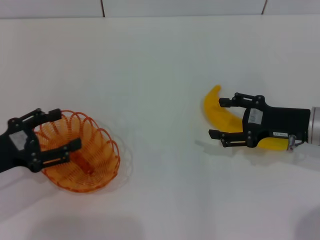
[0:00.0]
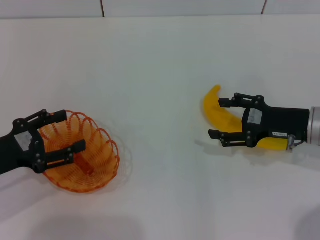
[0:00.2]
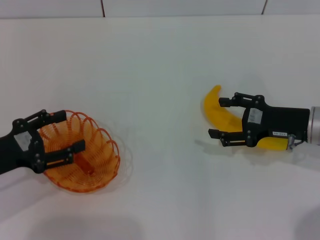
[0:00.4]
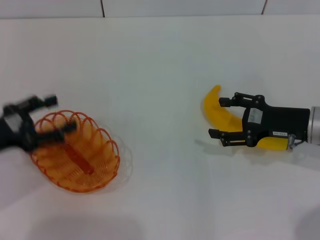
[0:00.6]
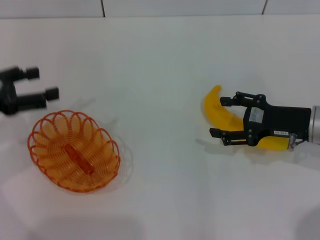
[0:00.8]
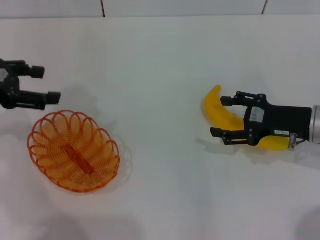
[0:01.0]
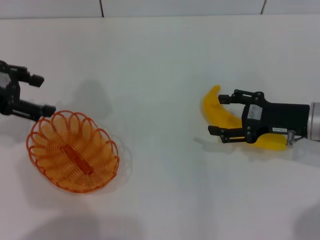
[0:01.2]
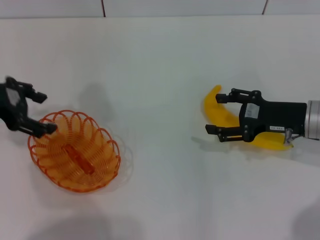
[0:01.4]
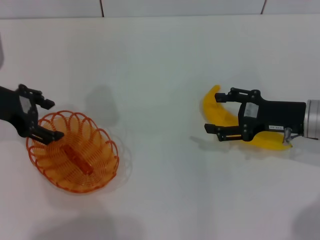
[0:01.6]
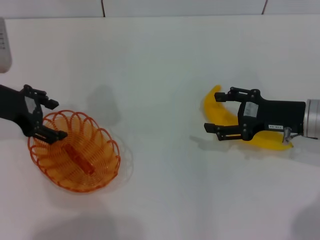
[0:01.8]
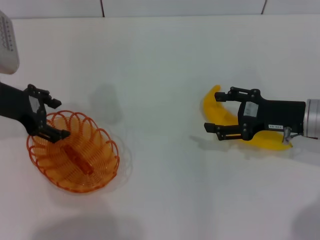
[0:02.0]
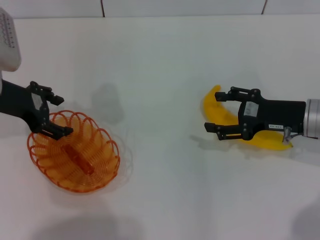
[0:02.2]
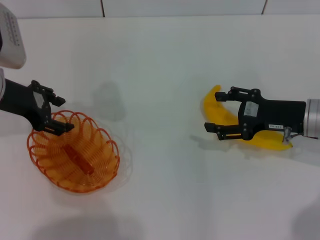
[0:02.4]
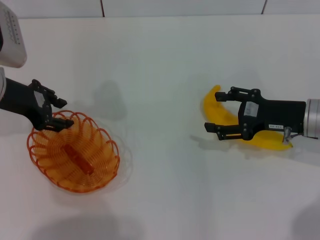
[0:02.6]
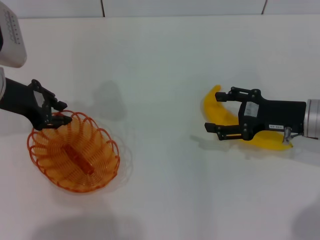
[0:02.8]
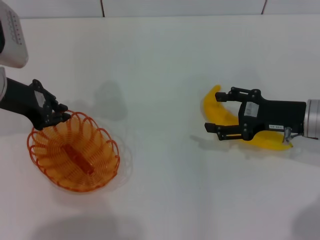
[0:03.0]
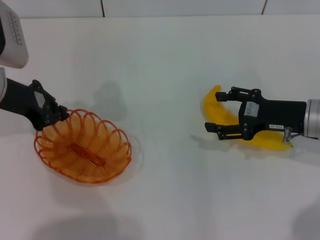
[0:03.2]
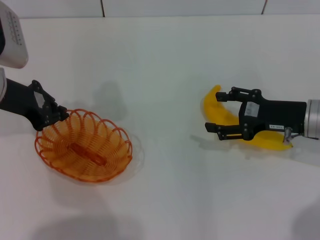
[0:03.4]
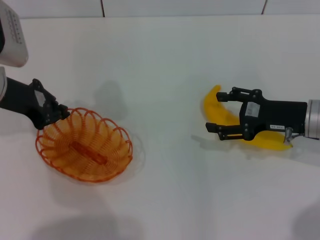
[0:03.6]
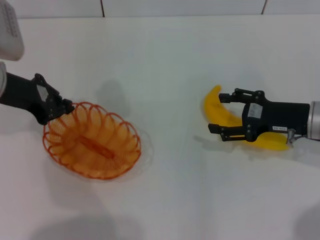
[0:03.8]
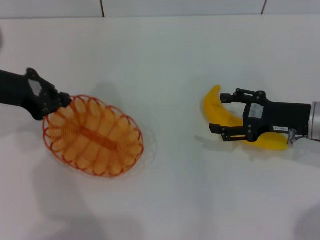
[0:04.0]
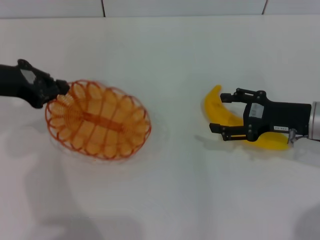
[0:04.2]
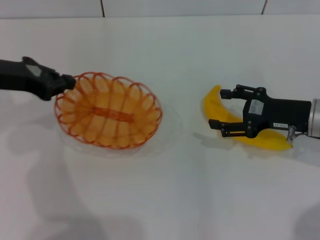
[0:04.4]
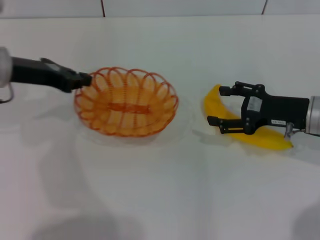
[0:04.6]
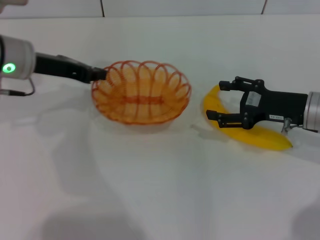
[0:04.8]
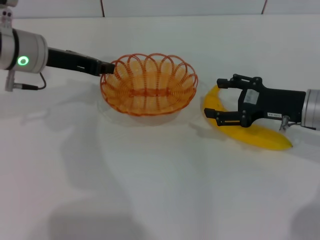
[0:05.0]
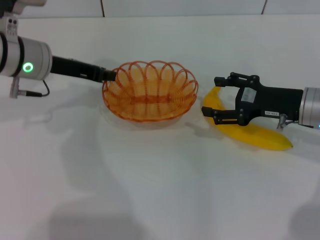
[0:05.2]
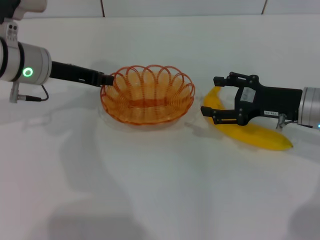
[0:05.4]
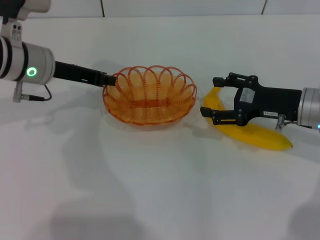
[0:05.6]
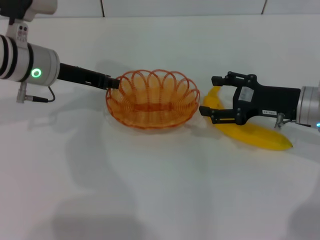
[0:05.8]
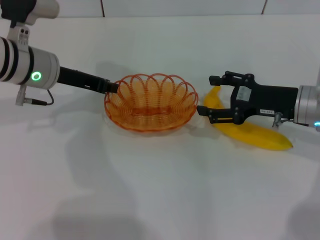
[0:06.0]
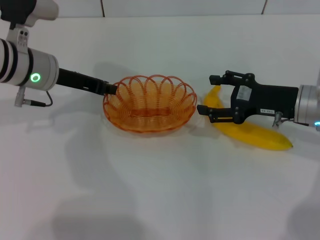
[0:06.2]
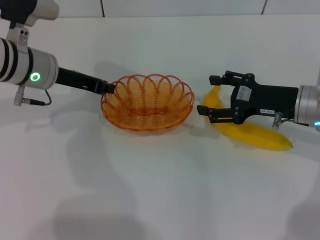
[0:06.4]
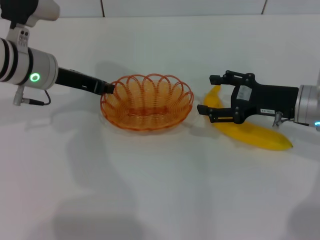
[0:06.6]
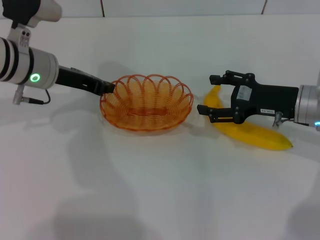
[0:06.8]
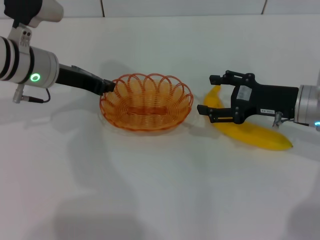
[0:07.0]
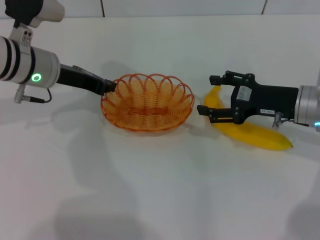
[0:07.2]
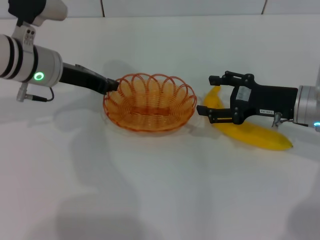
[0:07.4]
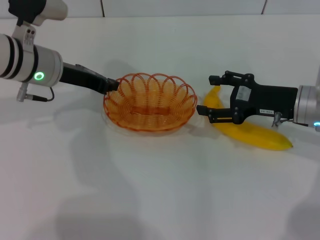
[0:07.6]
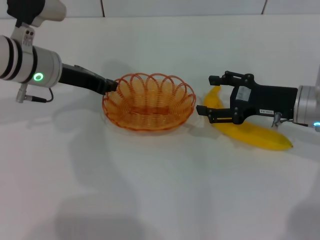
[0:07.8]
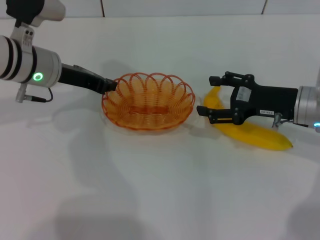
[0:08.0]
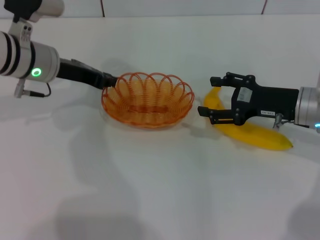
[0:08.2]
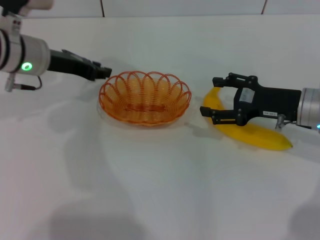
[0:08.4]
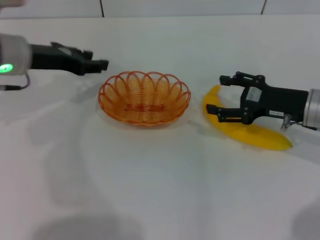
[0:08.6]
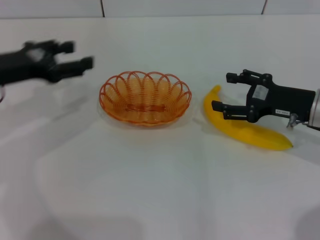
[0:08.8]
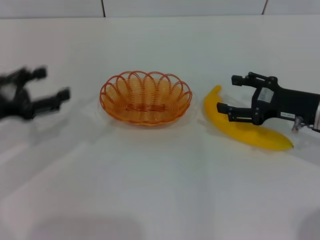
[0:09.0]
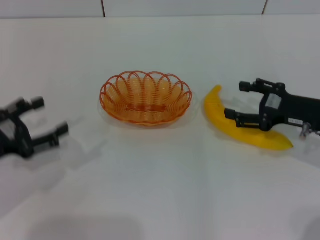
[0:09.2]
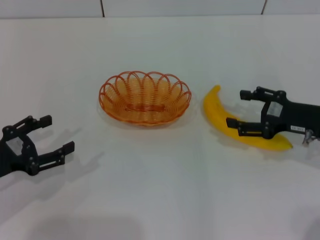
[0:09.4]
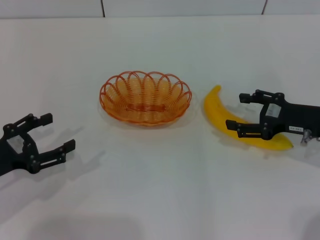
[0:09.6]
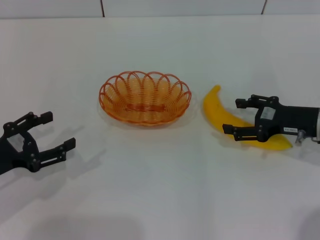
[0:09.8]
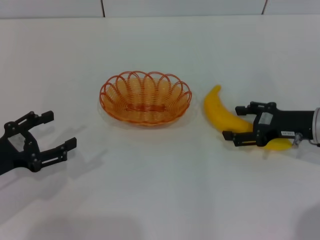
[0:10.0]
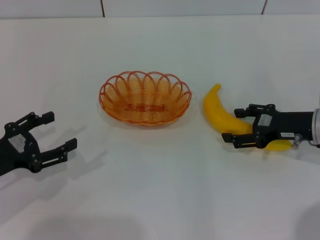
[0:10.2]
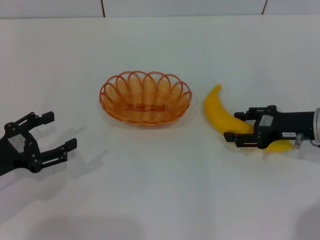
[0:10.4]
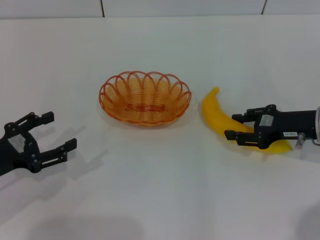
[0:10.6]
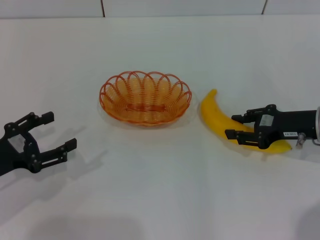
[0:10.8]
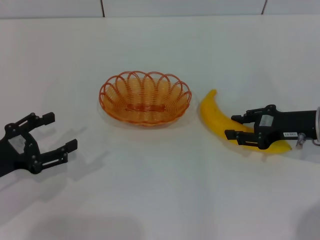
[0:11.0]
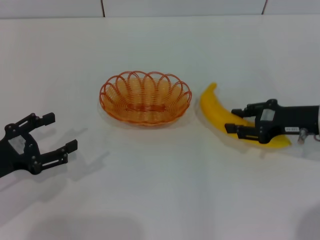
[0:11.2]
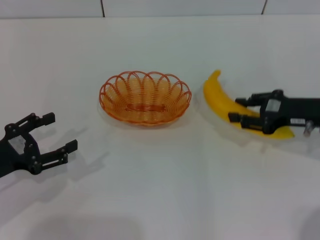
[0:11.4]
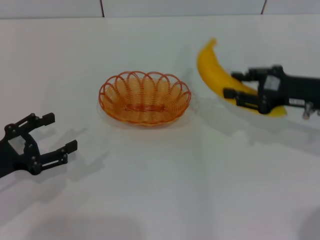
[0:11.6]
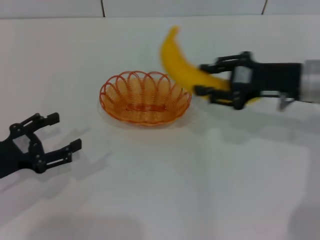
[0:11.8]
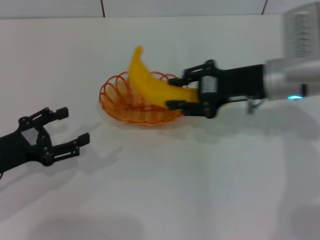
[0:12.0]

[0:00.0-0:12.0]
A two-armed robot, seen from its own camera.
Step, 0:00.0 to 0:04.2: Pick up the basket with the left gripper.
Step, 0:04.4 to 0:08.4: Place the basket in the center of view with the left gripper.
Step, 0:08.6 to 0:11.4: Pick up the banana with the right gripper.
0:00.0 to 0:01.6: The left gripper moves forward and upward, roughly 15 cm.
0:01.6 to 0:03.0: The left gripper closes its fingers.
0:03.0 to 0:04.4: The left gripper closes.
0:04.4 to 0:06.0: The left gripper heads to the right, covering some 10 cm.
0:06.0 to 0:07.6: The grippers move only a little.
0:07.6 to 0:09.0: The left gripper goes approximately 15 cm to the left and backward, and opens its fingers.
0:09.0 to 0:10.4: The left gripper is displaced downward and backward by approximately 10 cm.
0:10.4 to 0:12.0: The right gripper shifts roughly 10 cm to the left and upward, and closes its fingers.

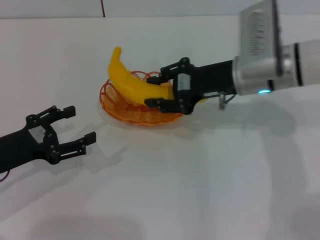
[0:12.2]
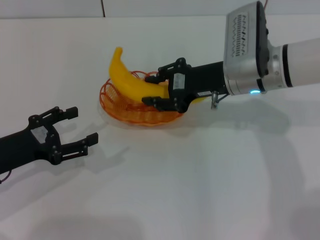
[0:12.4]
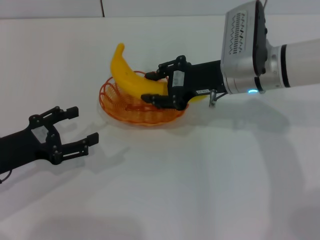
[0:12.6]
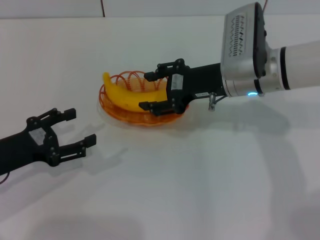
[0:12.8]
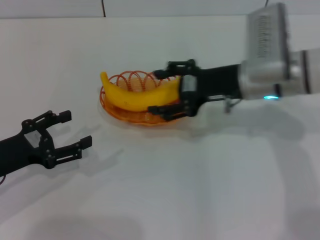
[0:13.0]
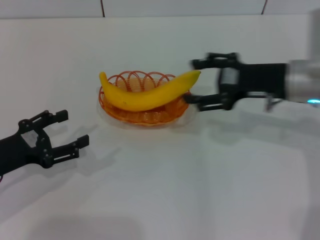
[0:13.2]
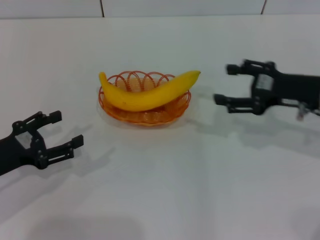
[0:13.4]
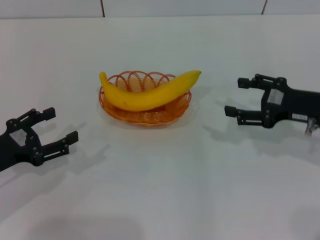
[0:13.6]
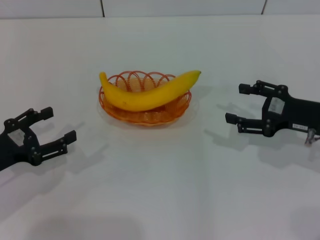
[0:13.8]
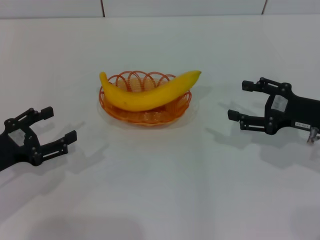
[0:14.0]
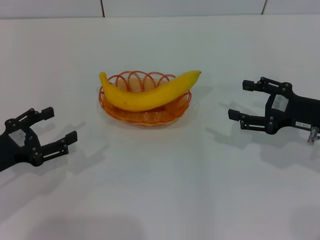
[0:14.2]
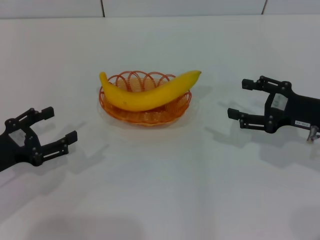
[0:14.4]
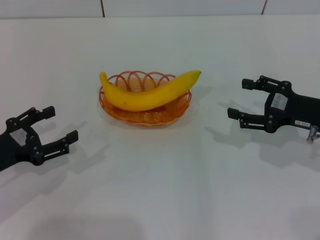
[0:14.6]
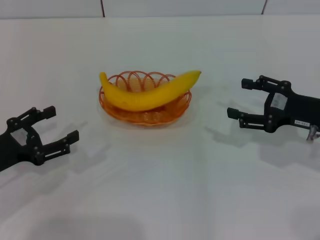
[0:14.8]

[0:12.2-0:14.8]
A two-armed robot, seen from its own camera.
Step, 0:12.2 to 0:13.0: Place the banana into the basket with the right gripper.
0:12.2 to 0:13.4: The right gripper goes approximately 15 cm to the right and backward, and opens.
0:13.4 to 0:14.8: The right gripper shifts by about 5 cm.
